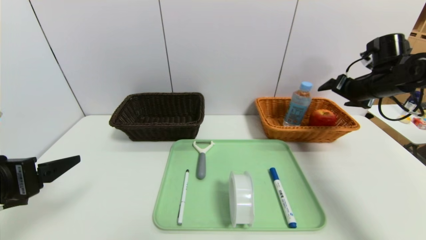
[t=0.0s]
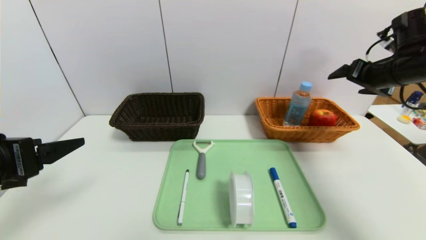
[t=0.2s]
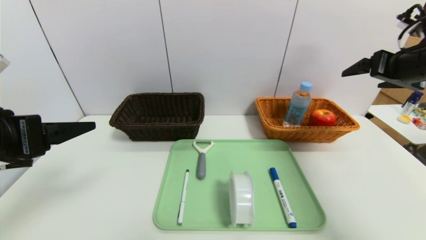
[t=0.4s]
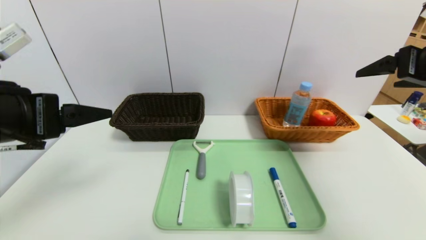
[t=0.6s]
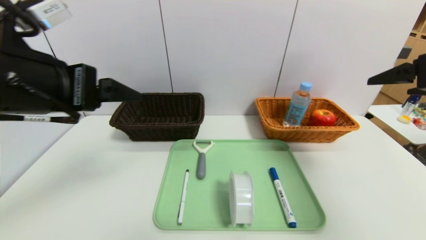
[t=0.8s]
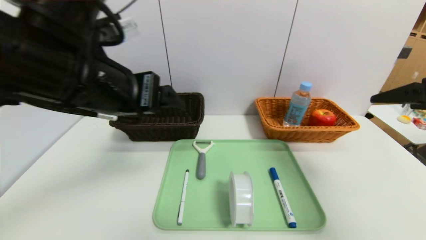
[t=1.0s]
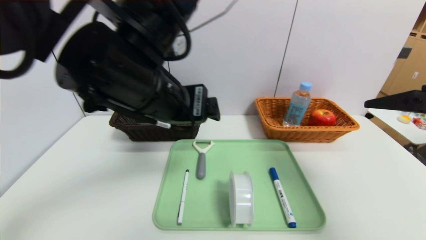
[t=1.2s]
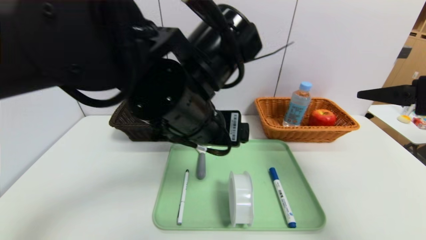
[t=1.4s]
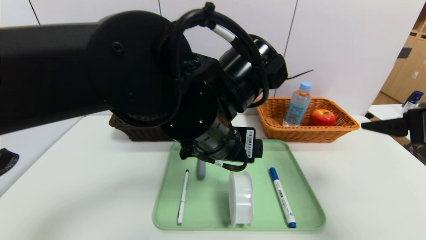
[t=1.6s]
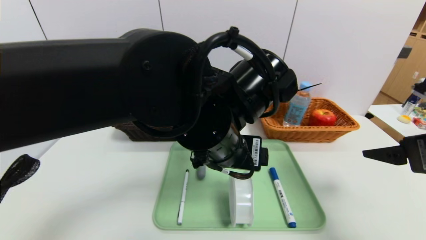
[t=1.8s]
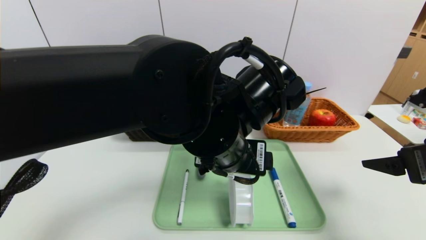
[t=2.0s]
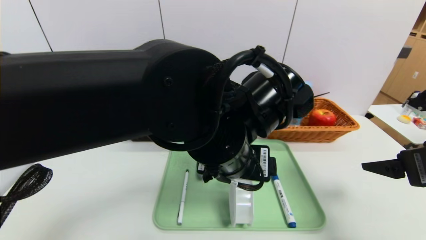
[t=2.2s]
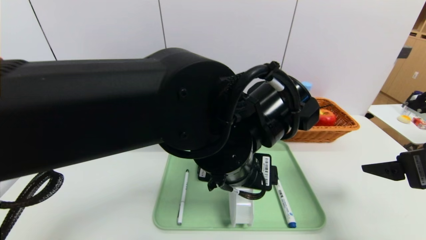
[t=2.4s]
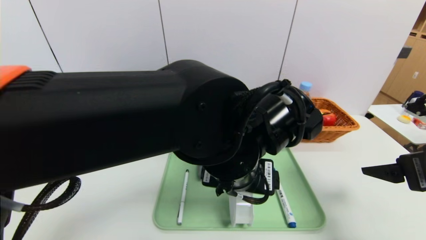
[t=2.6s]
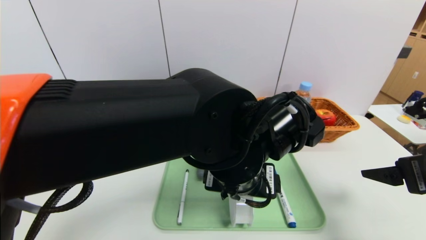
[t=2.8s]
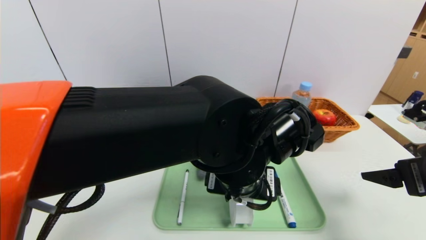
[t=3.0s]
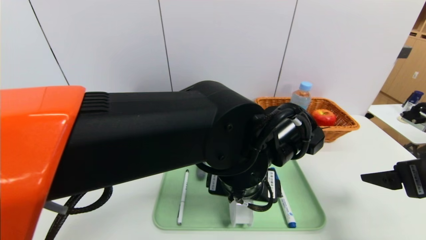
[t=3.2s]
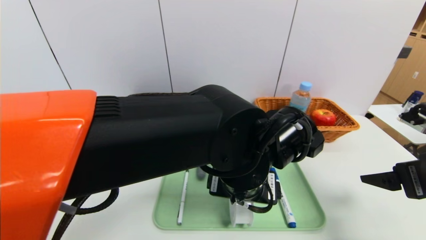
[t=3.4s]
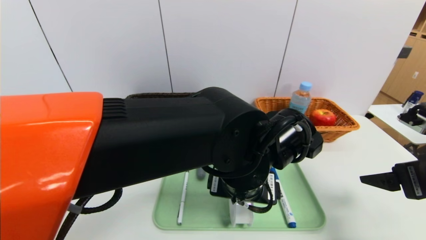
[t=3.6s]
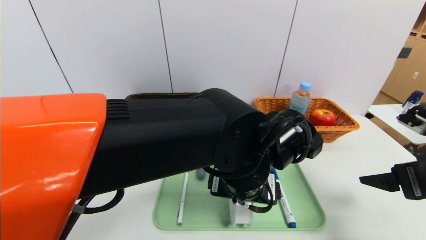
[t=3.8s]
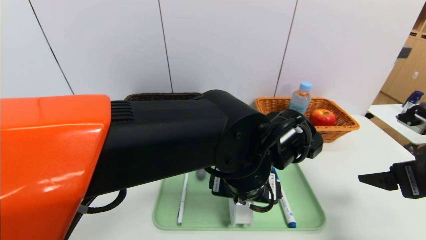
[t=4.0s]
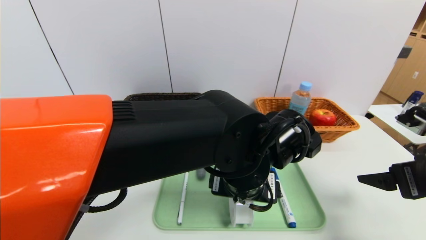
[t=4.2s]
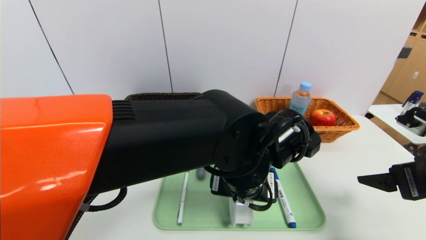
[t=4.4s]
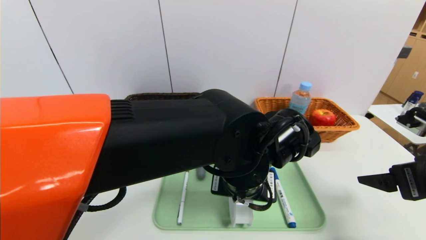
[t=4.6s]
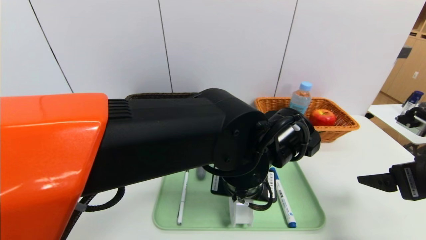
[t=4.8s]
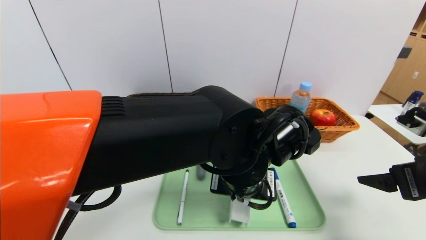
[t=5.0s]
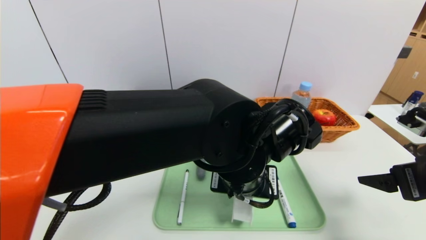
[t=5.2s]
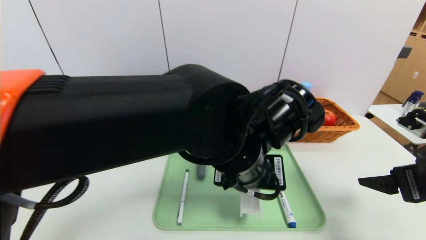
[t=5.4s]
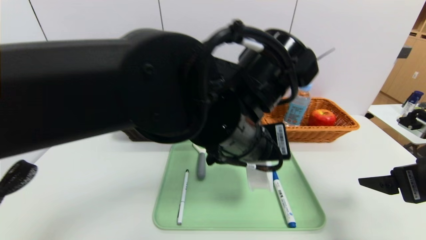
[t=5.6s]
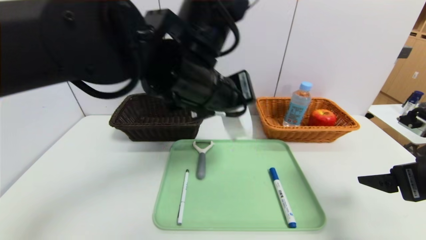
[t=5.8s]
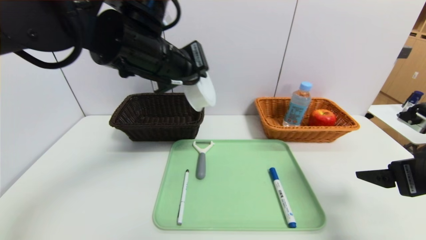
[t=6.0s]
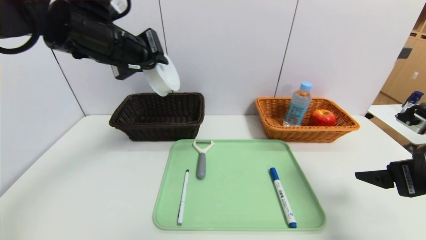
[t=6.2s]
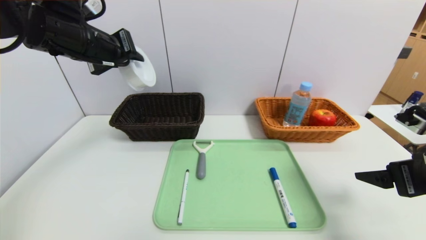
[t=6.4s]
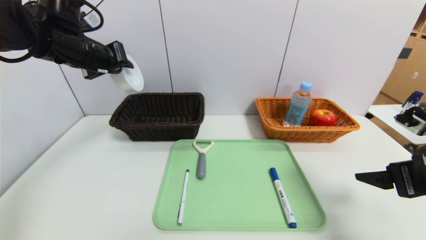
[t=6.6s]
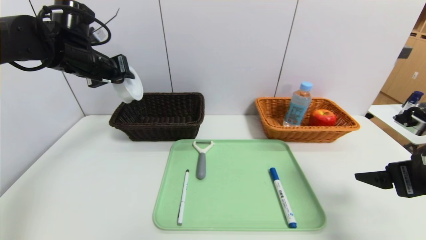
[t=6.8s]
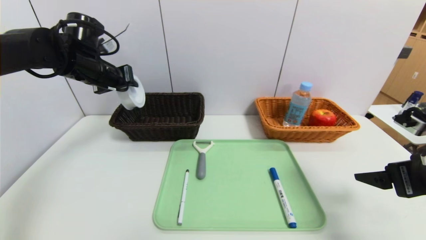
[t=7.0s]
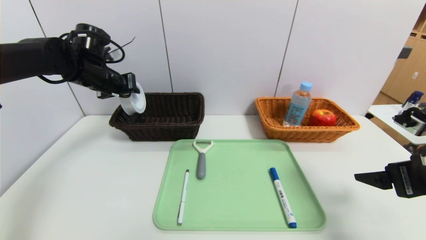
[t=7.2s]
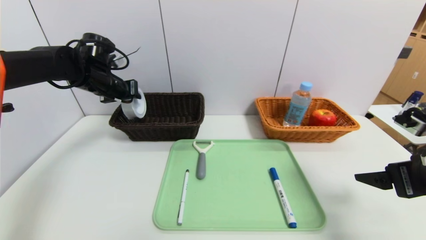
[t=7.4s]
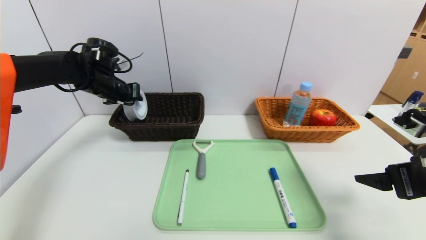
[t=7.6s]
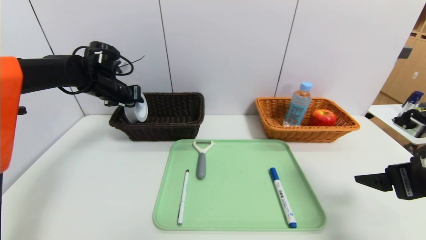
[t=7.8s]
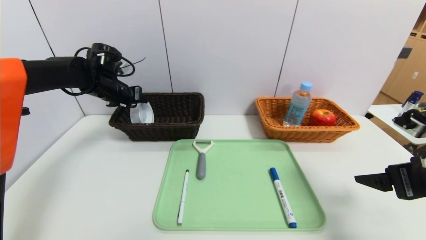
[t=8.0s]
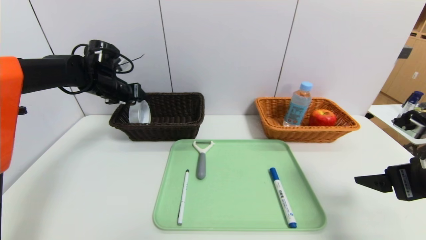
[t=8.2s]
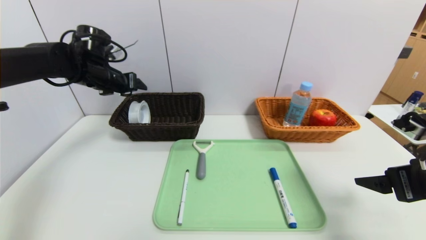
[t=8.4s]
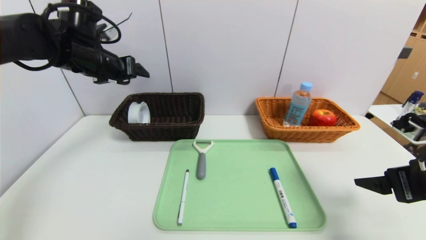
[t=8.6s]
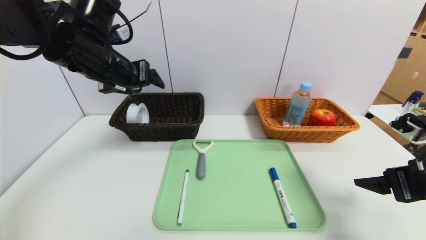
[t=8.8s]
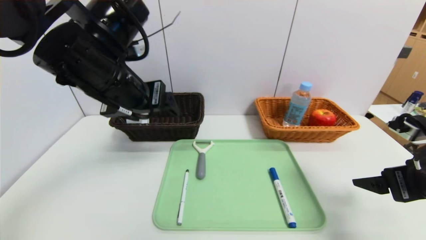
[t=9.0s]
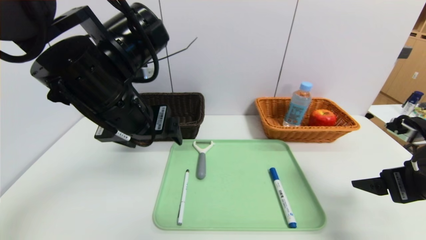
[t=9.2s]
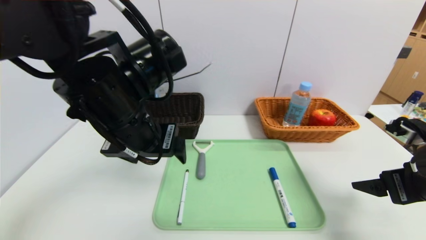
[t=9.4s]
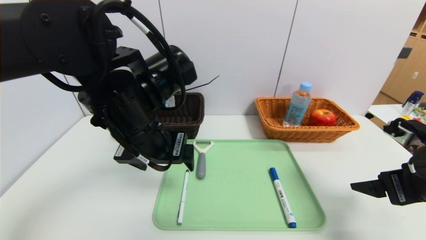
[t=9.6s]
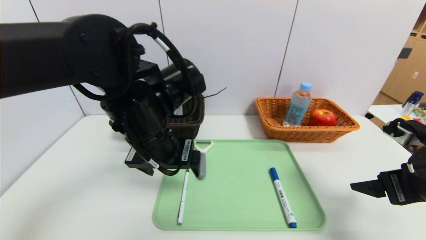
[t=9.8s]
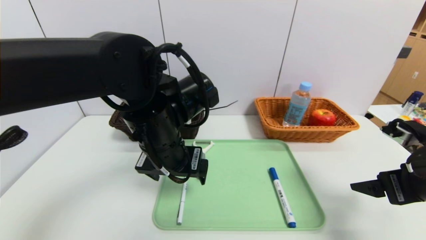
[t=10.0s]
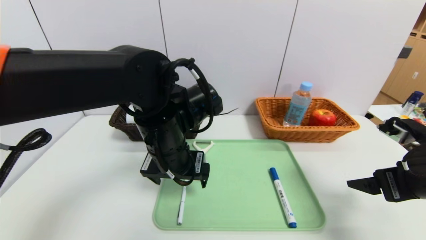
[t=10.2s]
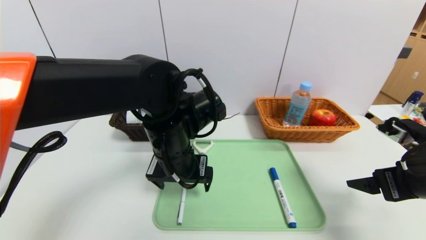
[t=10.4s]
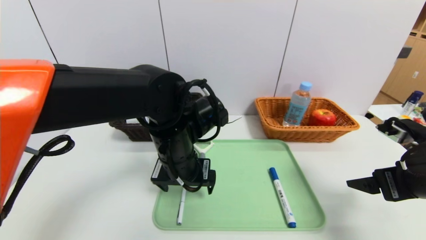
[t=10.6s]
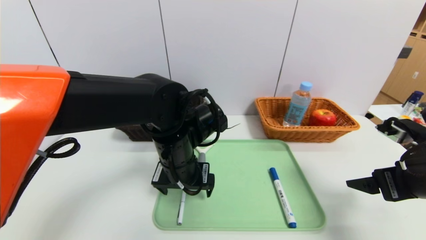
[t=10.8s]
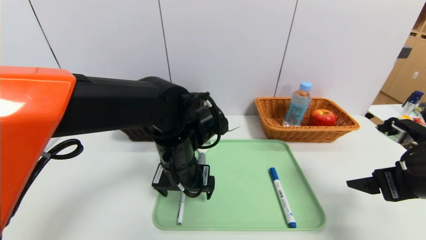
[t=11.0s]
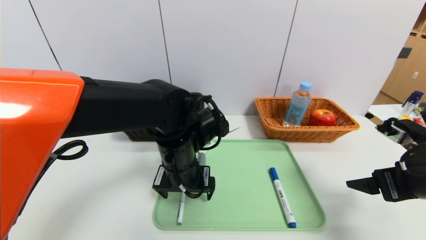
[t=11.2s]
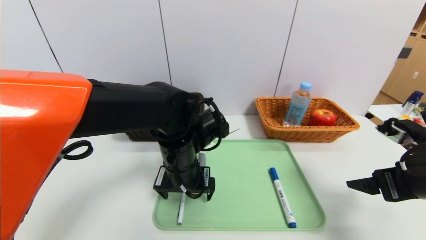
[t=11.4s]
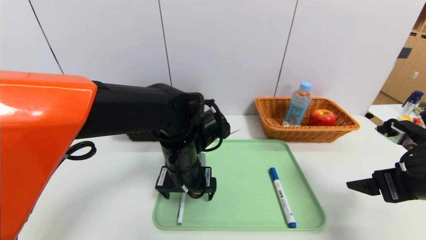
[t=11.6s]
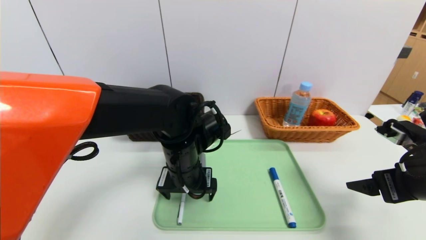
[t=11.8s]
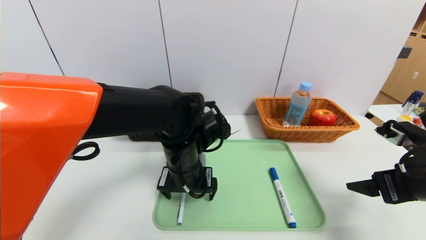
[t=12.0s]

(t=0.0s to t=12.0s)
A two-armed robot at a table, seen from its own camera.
Task of the whole recording: place the food in the right basket with the right gripper, and place the non food items in the left basket with the left gripper.
Step, t=0.0s - t=8.0s: Grasp the tape and put it in the left basket.
t=0.0s - t=1.6s: The right gripper shifts approximately 20 cm backward; the left gripper moves to the right, approximately 30 cm.
t=1.6s - t=3.0s: The two grippers go approximately 5 cm downward.
t=4.4s - t=6.0s: The left gripper is displaced upward, to the left and forward by about 20 cm, and closes.
t=6.0s - t=7.6s: The left gripper is displaced to the left, forward and downward by about 25 cm.
t=7.6s - t=9.0s: The left gripper moves backward, to the right and upward, roughly 25 cm, and opens its fingers.
t=9.0s - t=10.4s: The left gripper goes about 15 cm downward and to the right.
t=10.4s - t=12.0s: The left gripper changes place by some 5 cm.

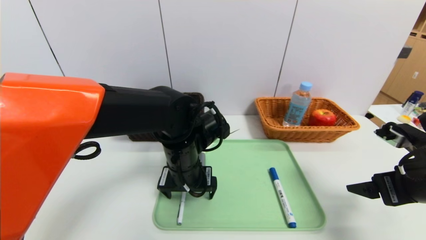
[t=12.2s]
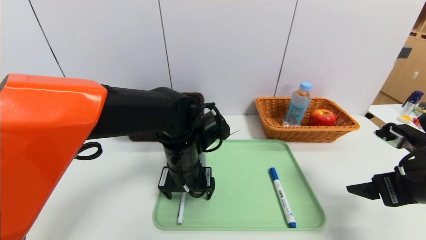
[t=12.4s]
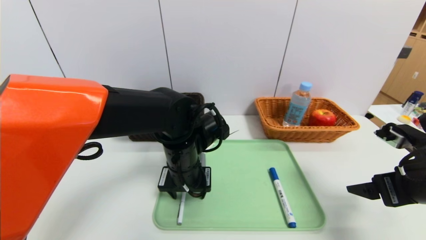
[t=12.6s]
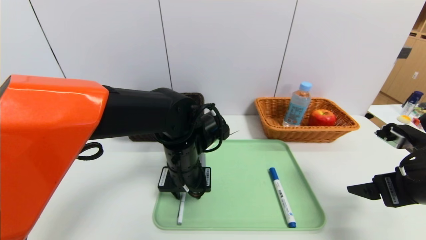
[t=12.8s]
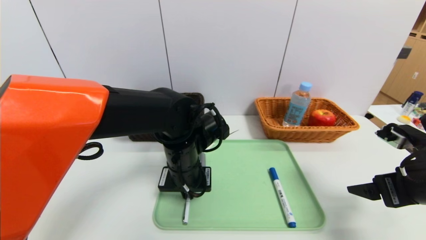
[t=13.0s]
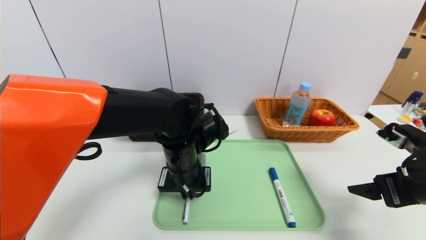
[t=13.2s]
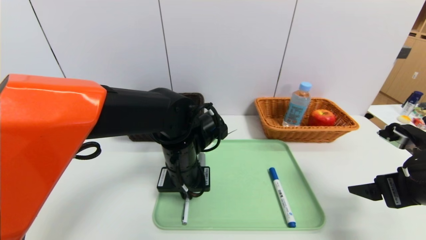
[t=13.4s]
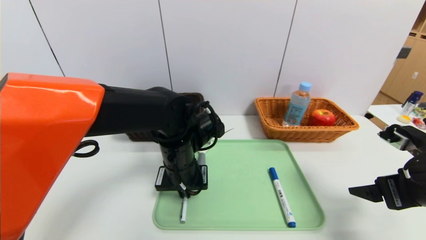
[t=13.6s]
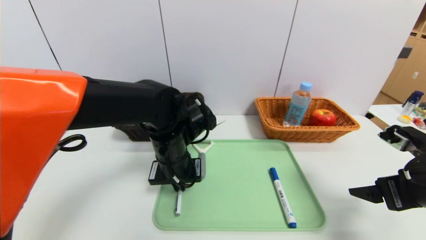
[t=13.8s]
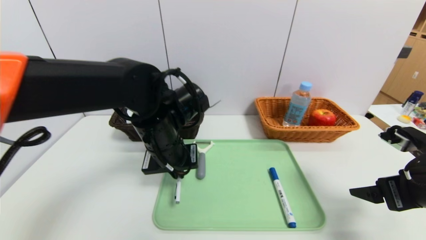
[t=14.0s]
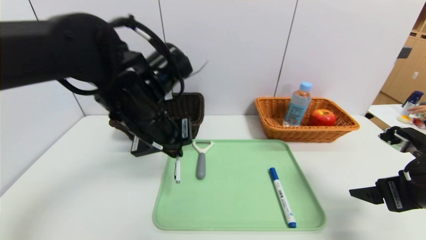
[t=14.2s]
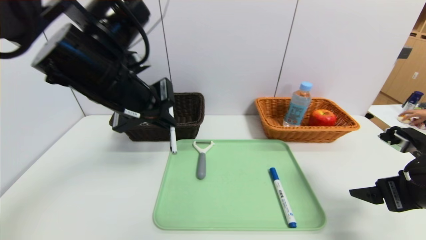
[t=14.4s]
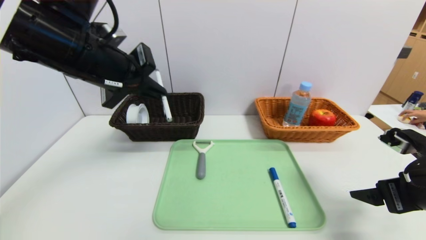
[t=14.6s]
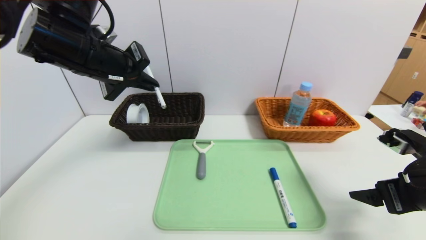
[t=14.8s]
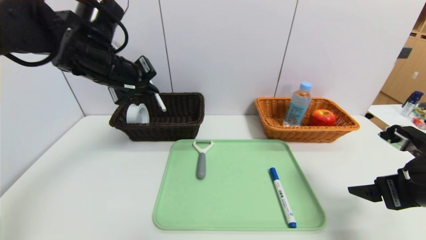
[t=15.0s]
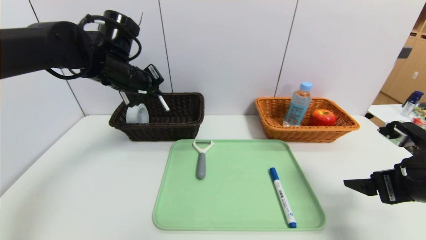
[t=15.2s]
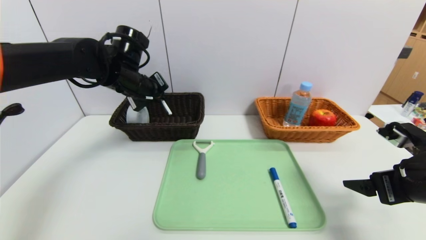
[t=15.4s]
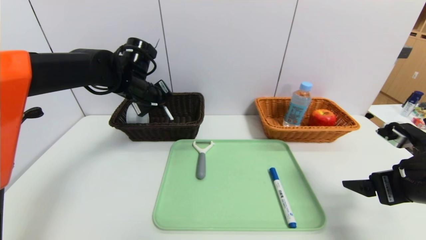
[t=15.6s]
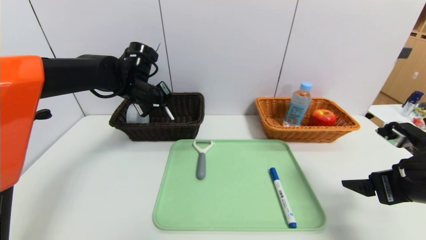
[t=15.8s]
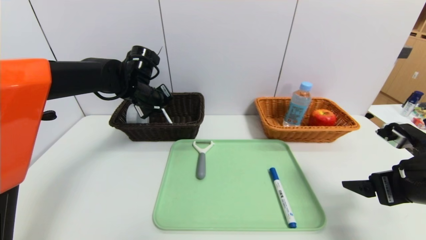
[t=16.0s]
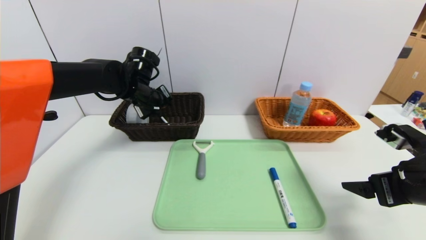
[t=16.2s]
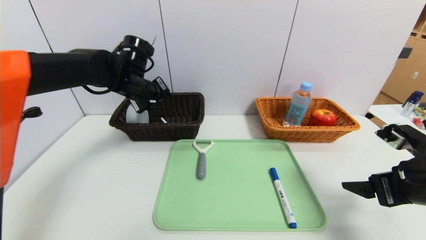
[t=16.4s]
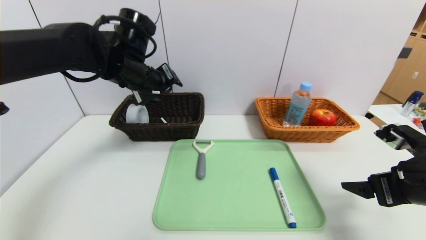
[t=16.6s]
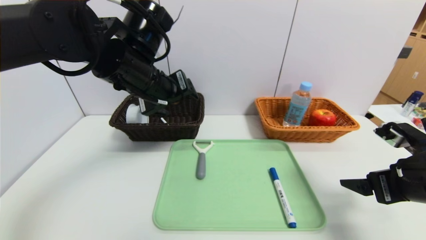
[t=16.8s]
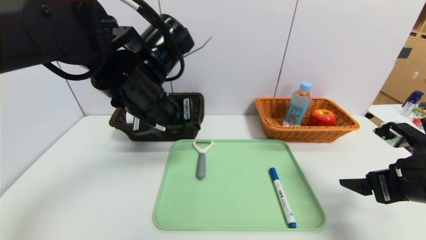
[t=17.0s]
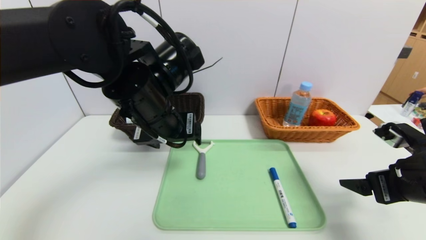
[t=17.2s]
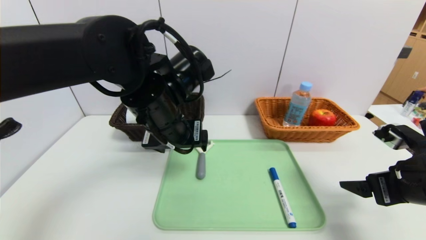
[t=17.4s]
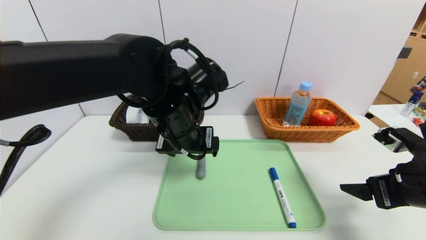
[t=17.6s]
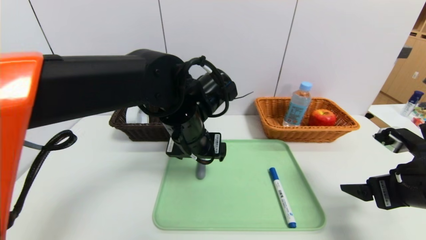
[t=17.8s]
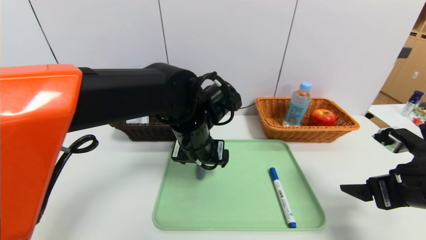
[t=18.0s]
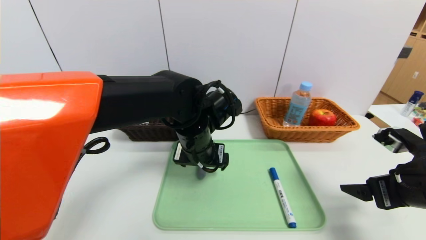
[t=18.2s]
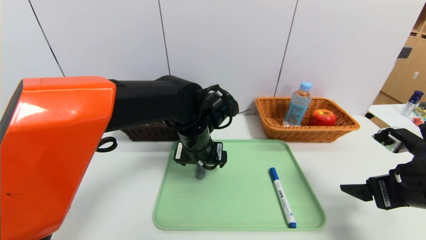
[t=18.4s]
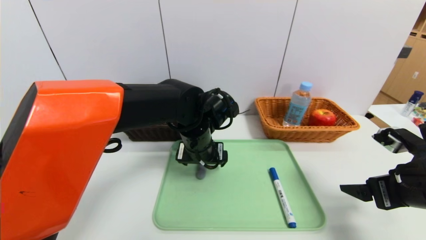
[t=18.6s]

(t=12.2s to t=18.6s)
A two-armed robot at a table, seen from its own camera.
Task of the whole recording: place the food in the right basket with the right gripper, and place the non food items in the left basket with the left gripper.
Step, t=12.2s - t=16.2s: Grasp the black marker and put it in the left basket.
t=12.2s - t=13.8s: The left gripper closes its fingers.
t=13.8s - t=15.4s: The left gripper travels to the left, forward and upward by some 20 cm.
t=15.4s - t=17.0s: The left gripper heads backward and to the right, covering about 15 cm, and opens up.
t=17.0s - t=18.6s: The left gripper heads downward, to the right and forward, covering some 15 cm.
